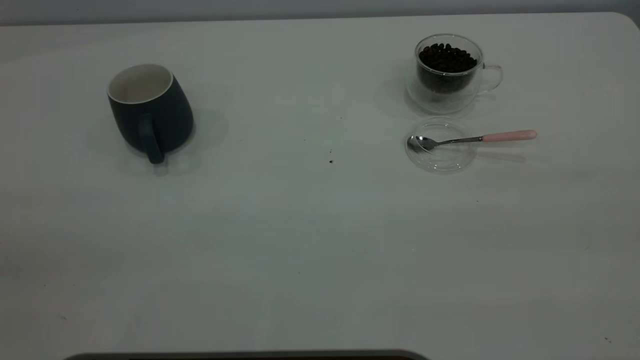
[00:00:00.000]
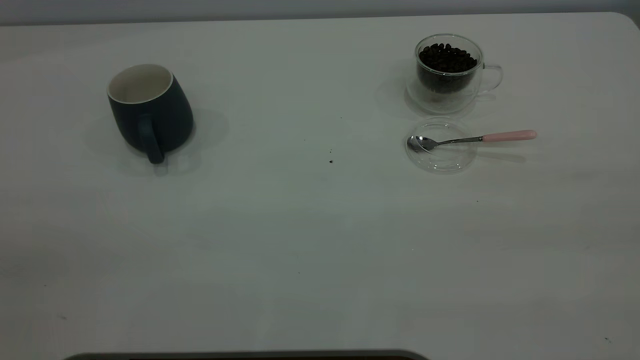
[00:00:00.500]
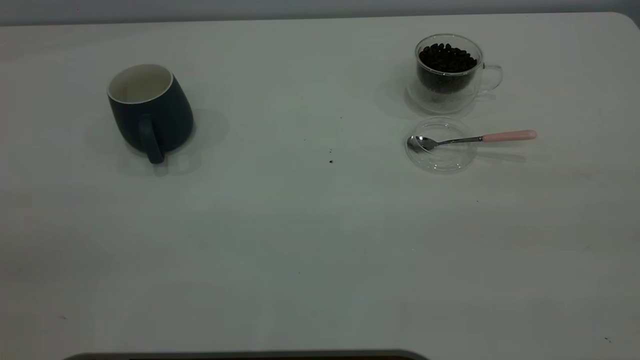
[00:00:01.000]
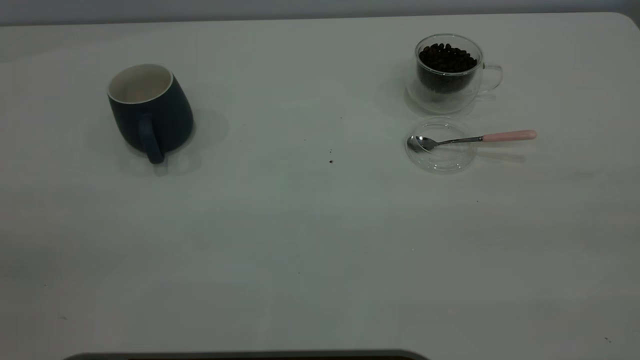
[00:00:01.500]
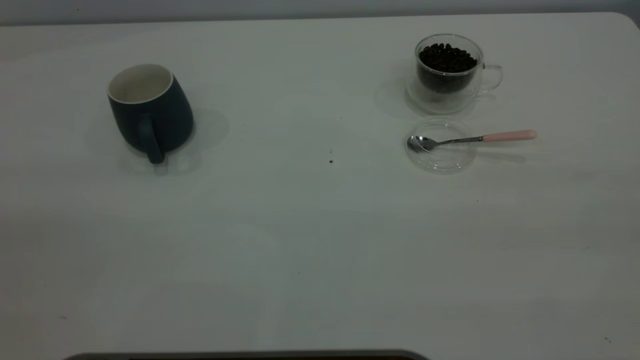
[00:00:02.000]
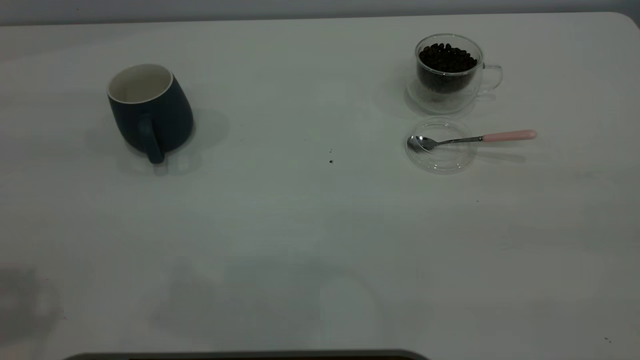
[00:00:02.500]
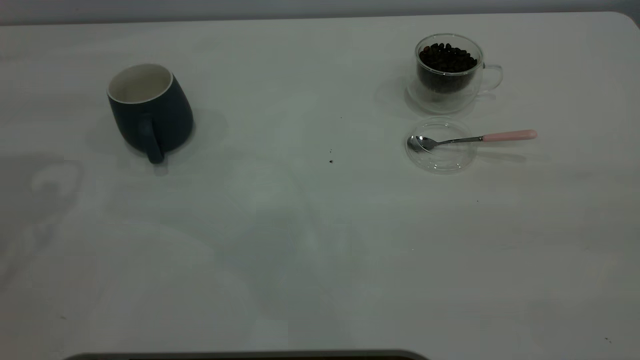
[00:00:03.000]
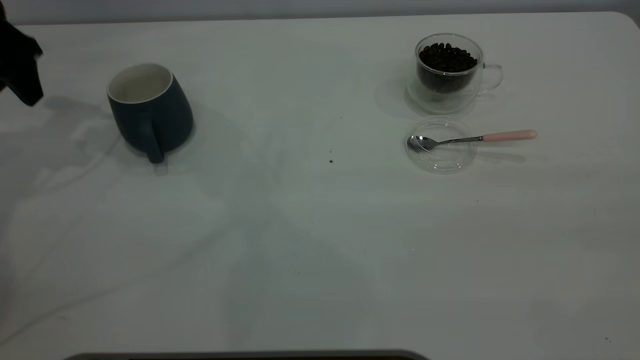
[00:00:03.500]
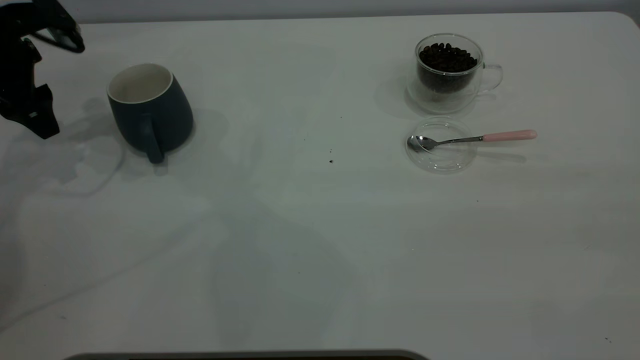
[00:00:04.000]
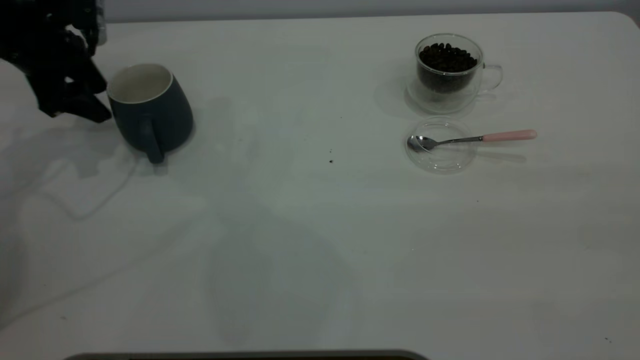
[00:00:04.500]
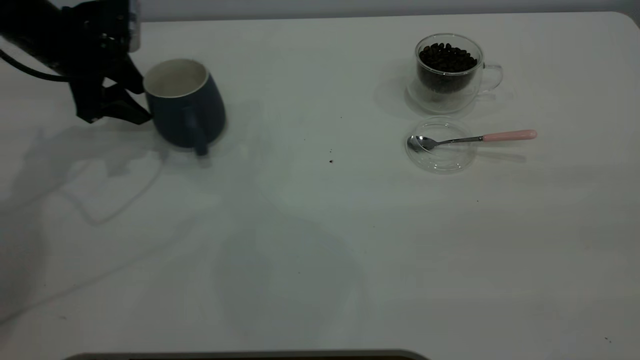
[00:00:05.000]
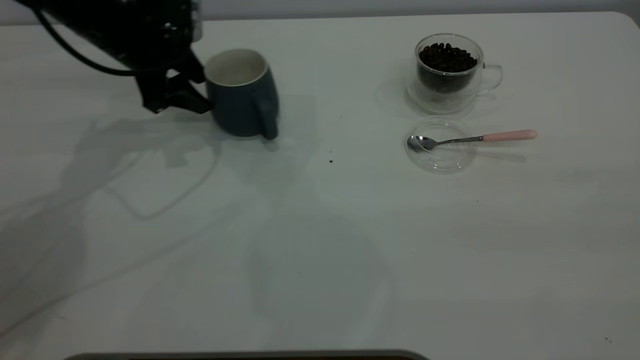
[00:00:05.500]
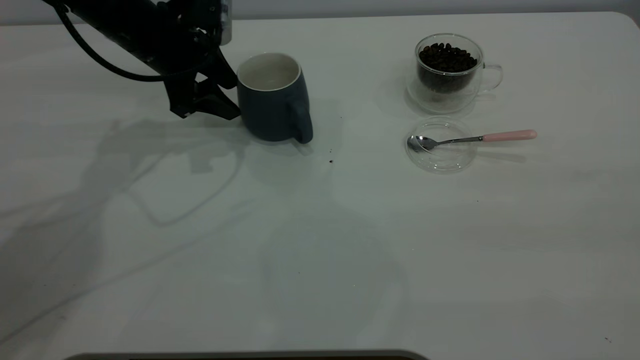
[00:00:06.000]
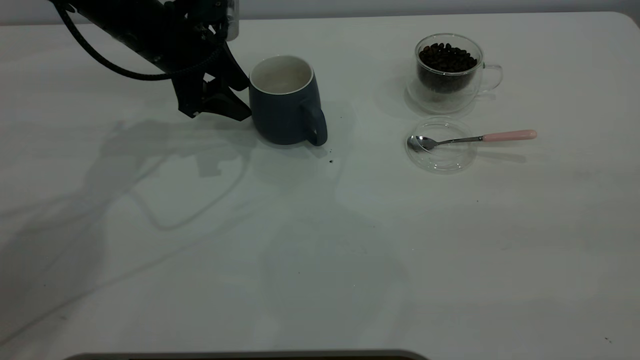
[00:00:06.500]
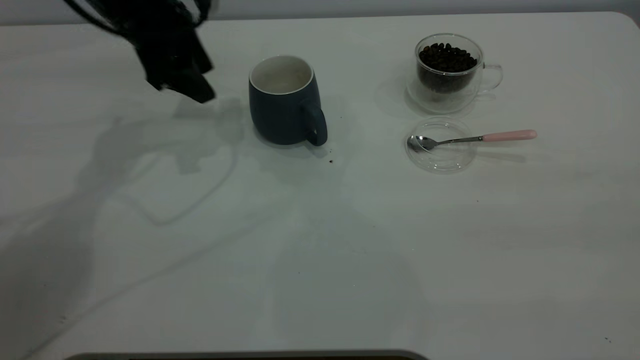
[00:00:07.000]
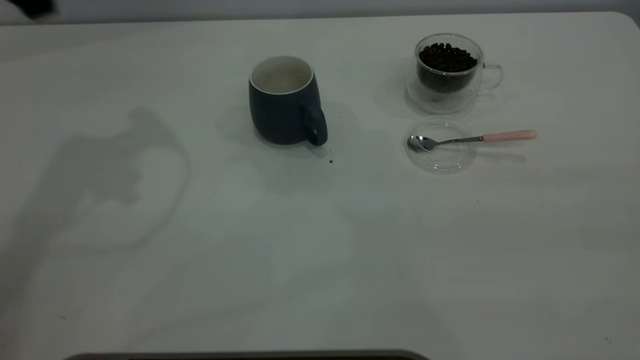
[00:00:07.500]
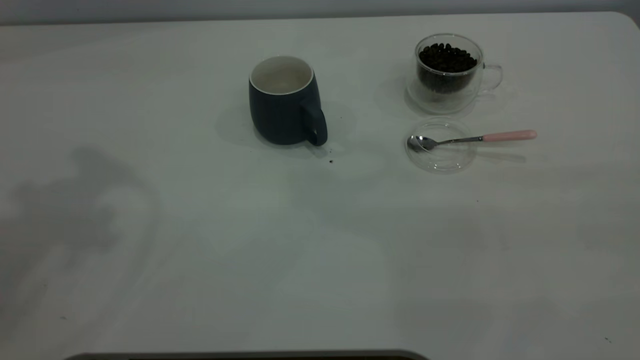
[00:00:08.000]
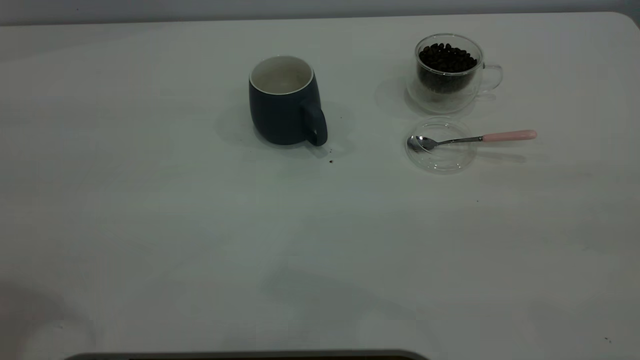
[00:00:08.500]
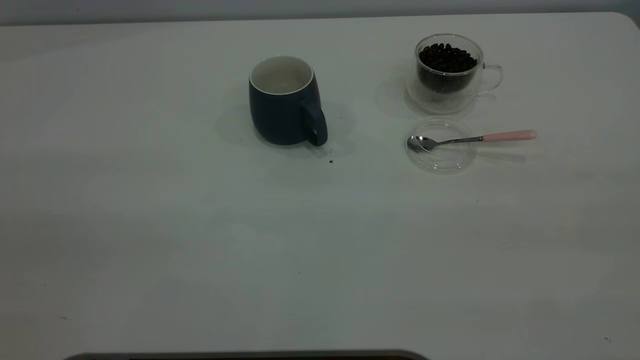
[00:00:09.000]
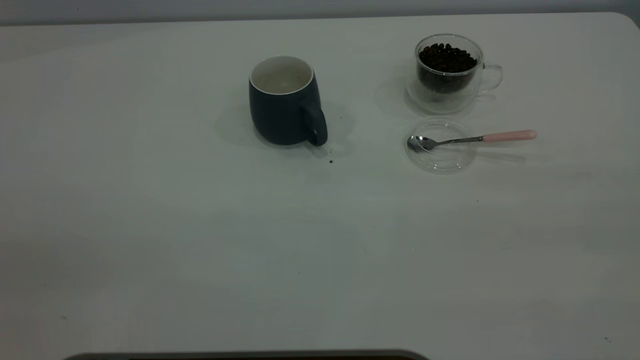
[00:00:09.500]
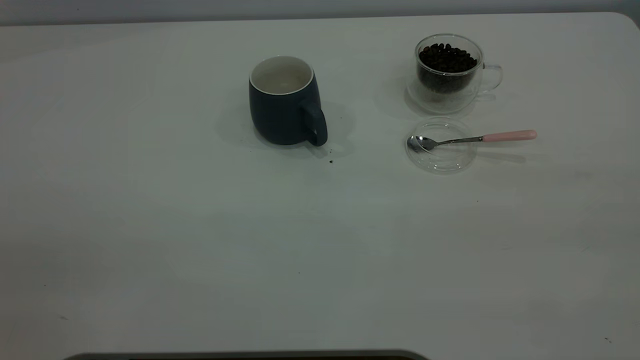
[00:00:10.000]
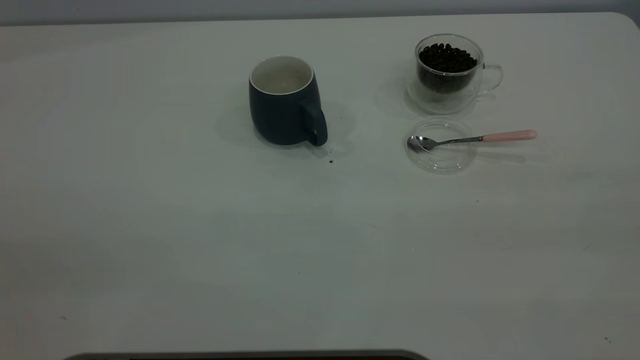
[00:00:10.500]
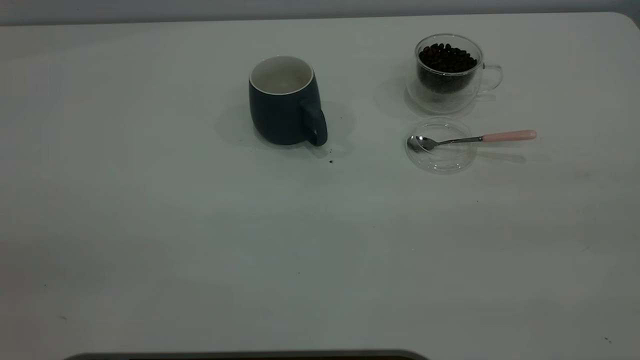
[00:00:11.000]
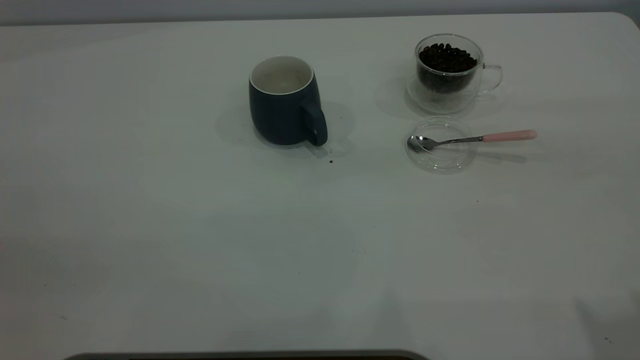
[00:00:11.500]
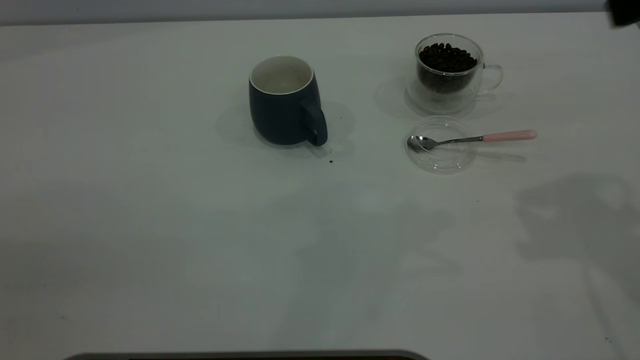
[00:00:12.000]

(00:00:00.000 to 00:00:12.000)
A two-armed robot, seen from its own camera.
Task of the whole recording: the left gripper place the grey cup in the center of the table, the right gripper take the pink spoon from the cup lid and scoop out the coffee beans from the coffee cup and put them into the grey cup, the right gripper put the spoon back into the cup lid.
Step, 00:00:00.000 - 00:00:06.500: Move the cup to the center of view.
00:00:02.000 - 00:00:04.000: The left gripper is displaced forward and downward by some 50 cm.
00:00:04.000 - 00:00:06.000: The left gripper goes roughly 15 cm to the right.
00:00:06.000 - 00:00:08.000: The left gripper moves upward and backward, about 35 cm.

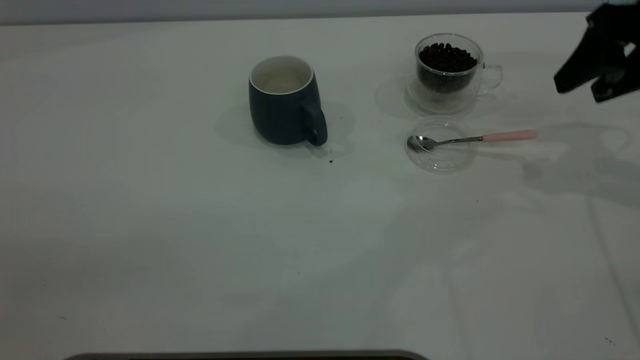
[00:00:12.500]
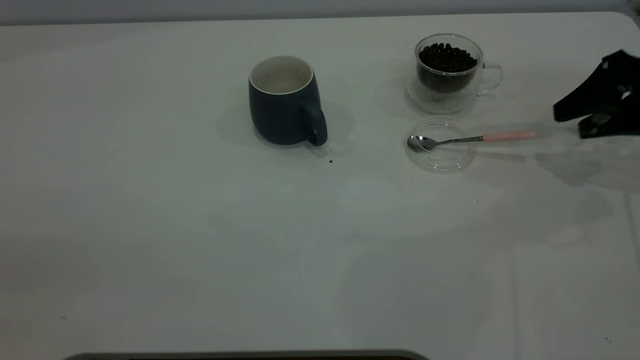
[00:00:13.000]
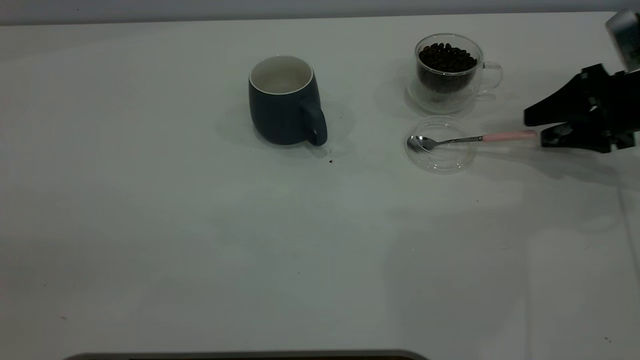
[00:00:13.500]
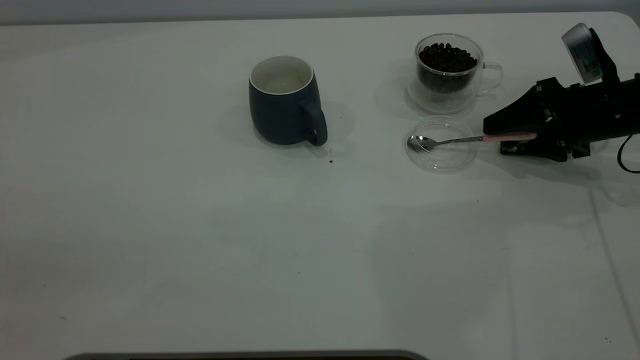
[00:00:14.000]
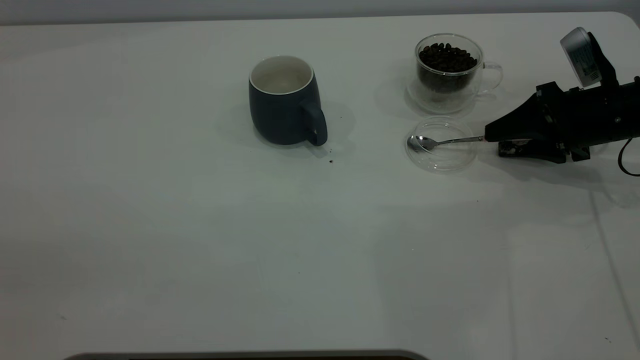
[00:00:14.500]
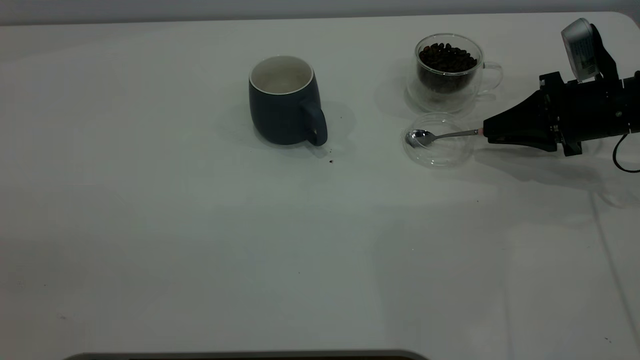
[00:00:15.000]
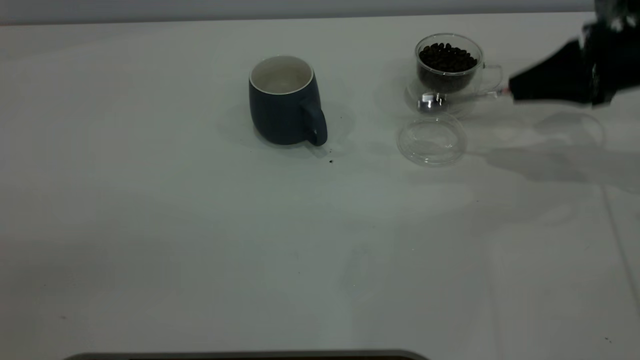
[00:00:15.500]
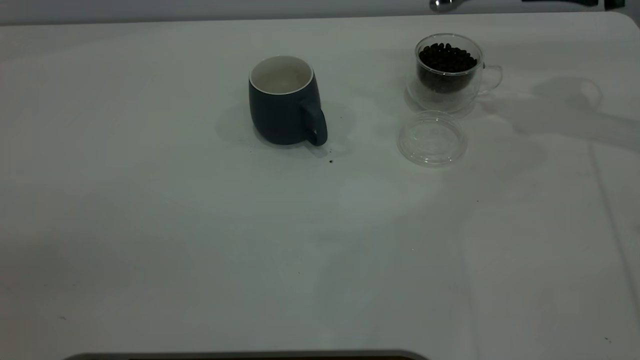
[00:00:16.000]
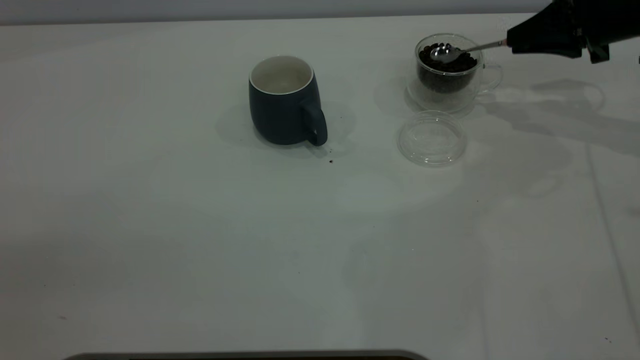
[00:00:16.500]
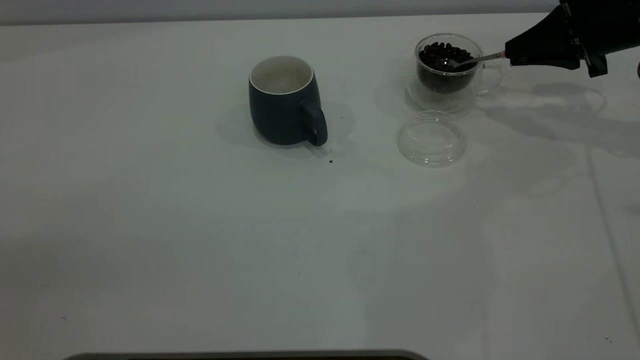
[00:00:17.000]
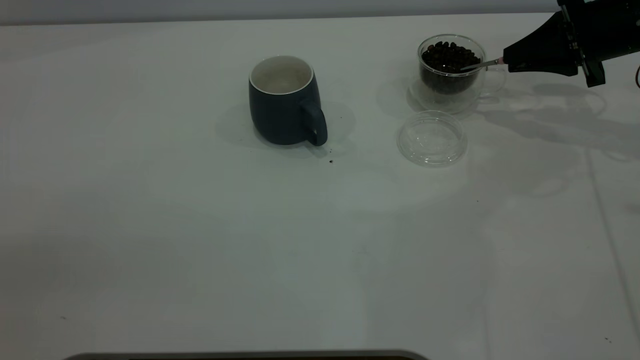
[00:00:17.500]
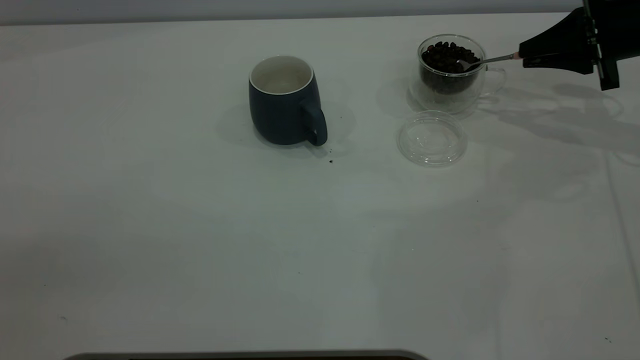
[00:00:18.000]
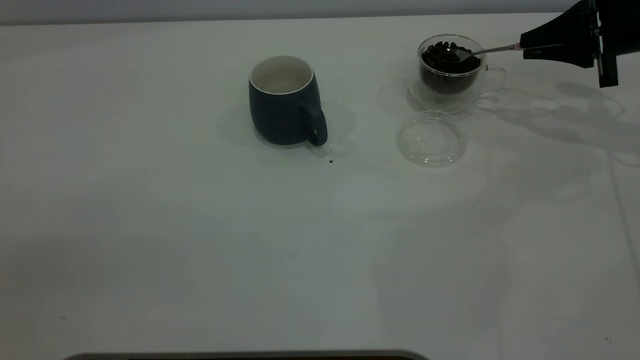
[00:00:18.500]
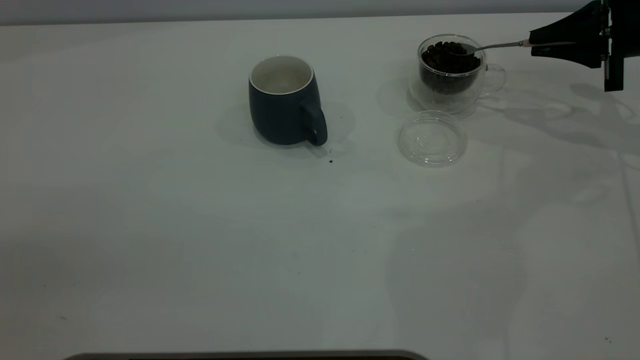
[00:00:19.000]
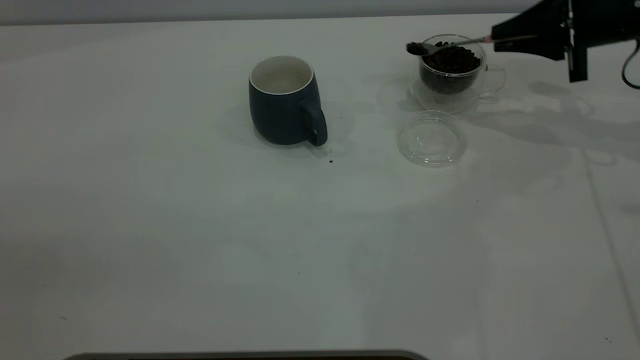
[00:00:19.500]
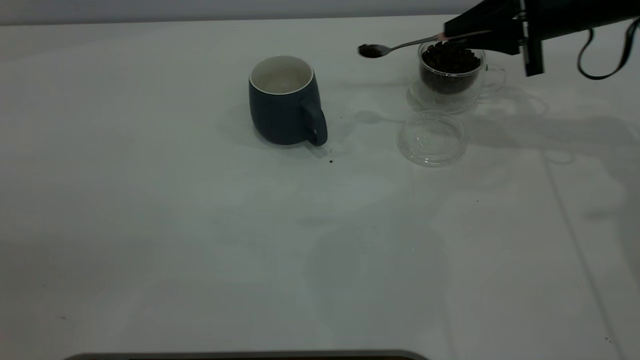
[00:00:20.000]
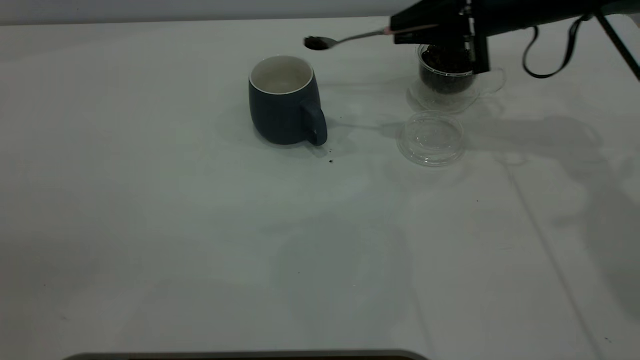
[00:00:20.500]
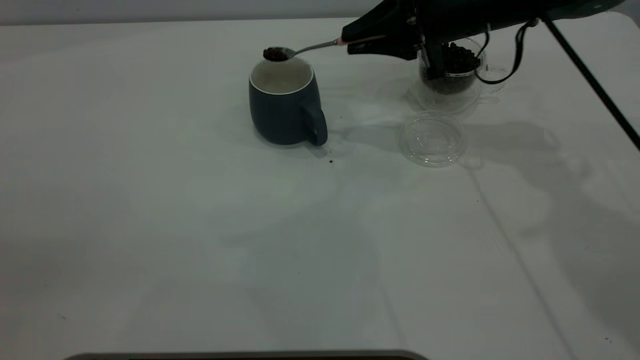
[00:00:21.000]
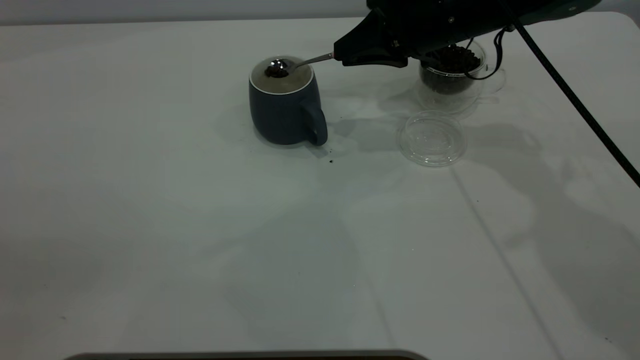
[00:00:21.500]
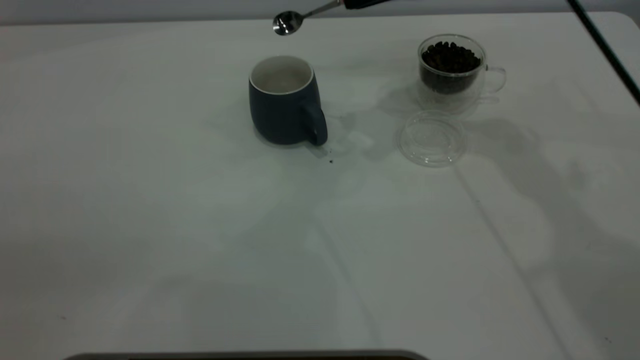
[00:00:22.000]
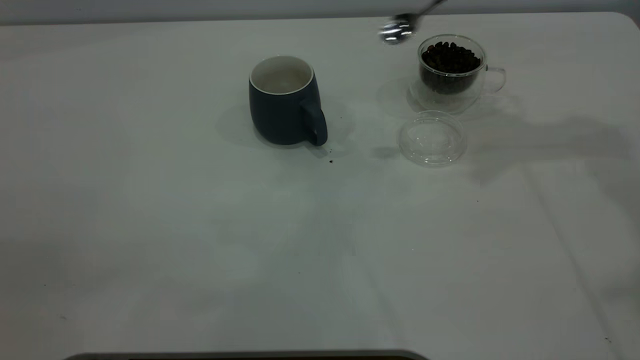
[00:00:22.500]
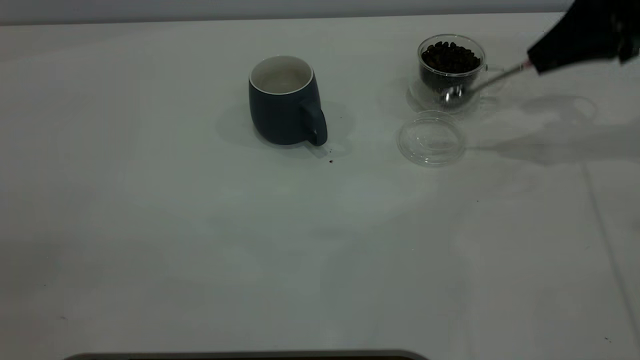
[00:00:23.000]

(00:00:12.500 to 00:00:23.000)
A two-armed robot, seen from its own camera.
Task of the whole recording: the left gripper place the grey cup in the center of the table, the right gripper take the pink spoon from the cup lid and scoop out the coffee beans from the coffee cup and put them into the grey cup, the right gripper put the spoon back into the cup lid.
Step, 00:00:12.500 - 00:00:15.000: Pick up the spoon.
Step, 00:00:16.000 - 00:00:21.500: Scoop a spoonful of beans into the cup.
00:00:12.500 - 00:00:14.500: The right gripper heads downward, covering roughly 15 cm.
00:00:14.500 - 00:00:16.500: The right gripper goes roughly 10 cm upward and forward, and closes its fingers.
00:00:19.000 - 00:00:21.000: The right gripper goes some 20 cm to the left.
00:00:21.000 - 00:00:23.000: The right gripper travels to the right by approximately 20 cm.
